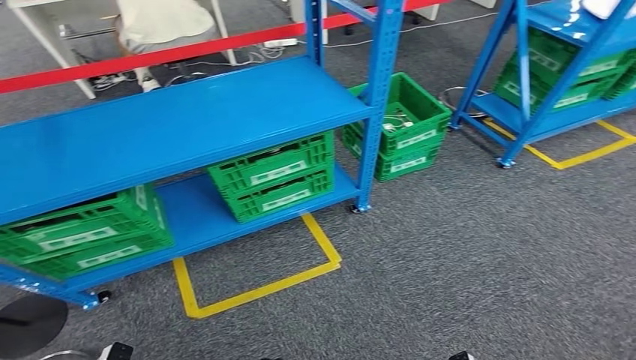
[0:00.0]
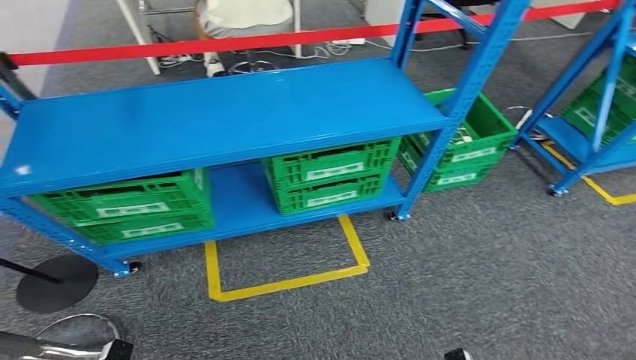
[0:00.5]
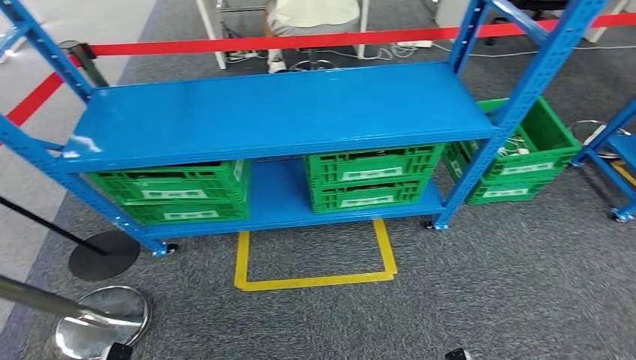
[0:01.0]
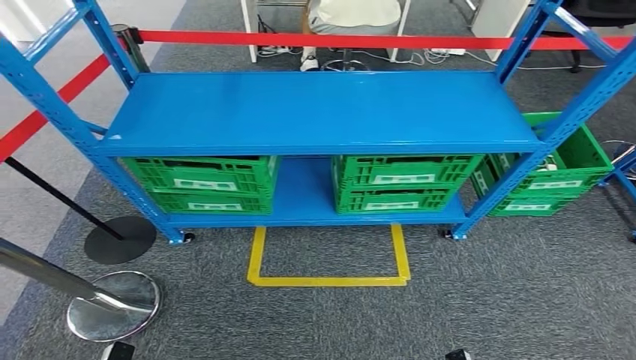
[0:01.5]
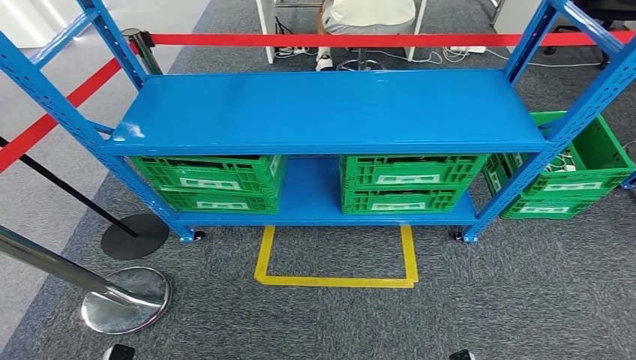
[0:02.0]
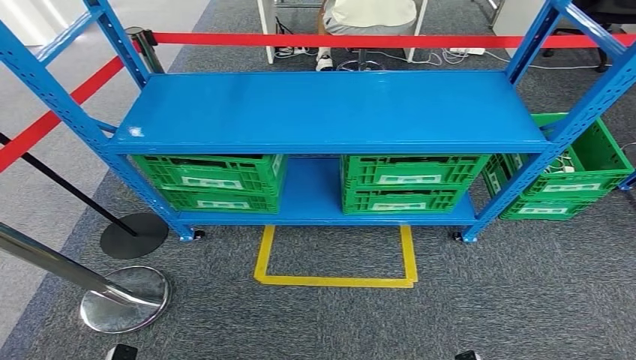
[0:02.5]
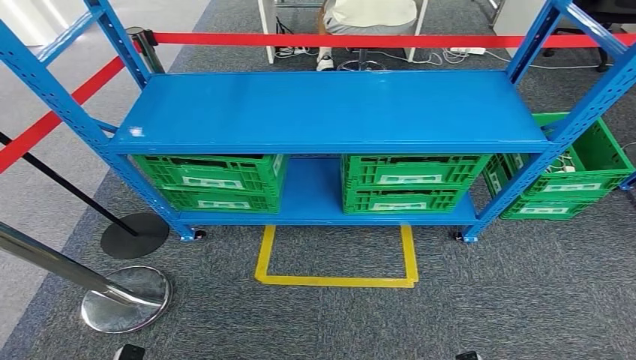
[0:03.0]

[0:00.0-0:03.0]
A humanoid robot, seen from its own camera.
Step, 0:00.0 to 0:03.0: Return to the initial position at the workbench.
